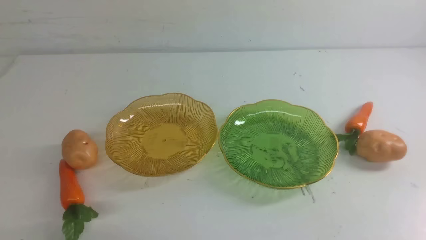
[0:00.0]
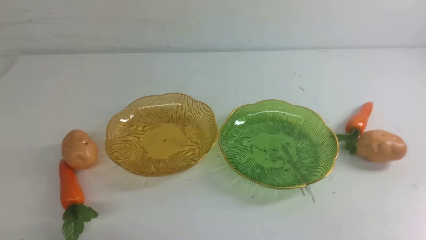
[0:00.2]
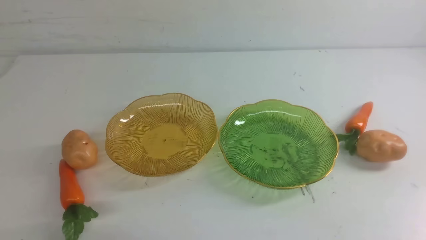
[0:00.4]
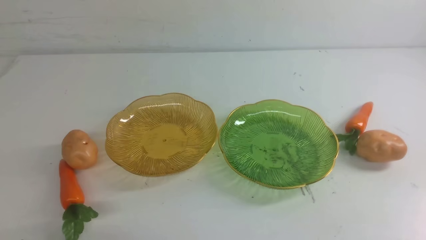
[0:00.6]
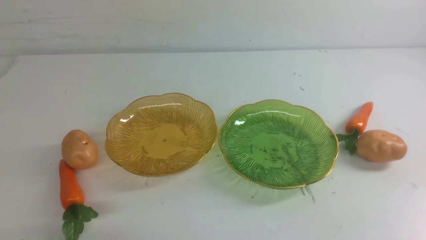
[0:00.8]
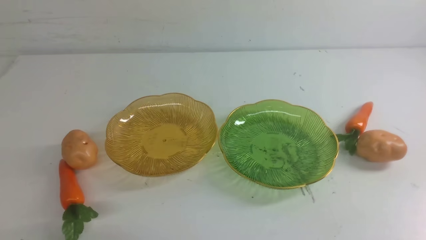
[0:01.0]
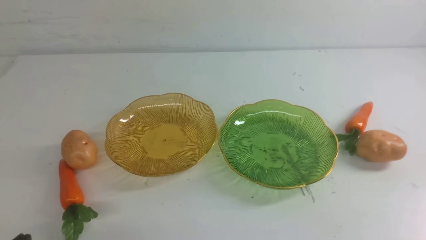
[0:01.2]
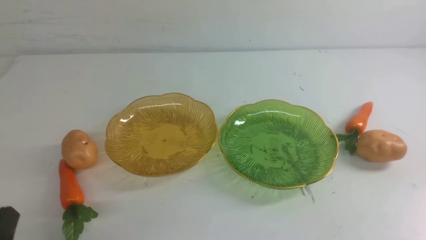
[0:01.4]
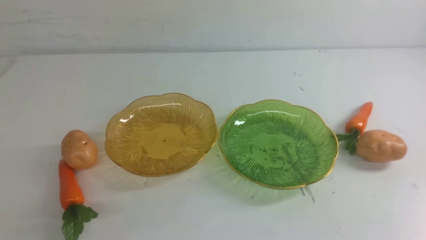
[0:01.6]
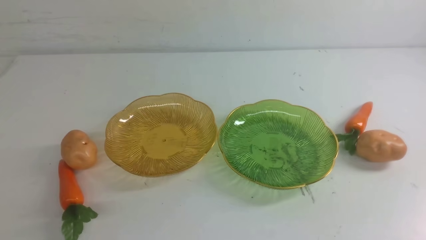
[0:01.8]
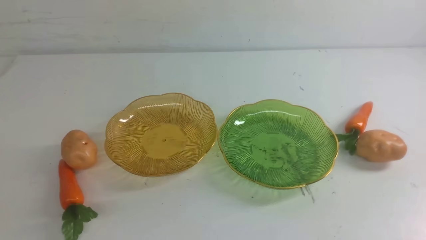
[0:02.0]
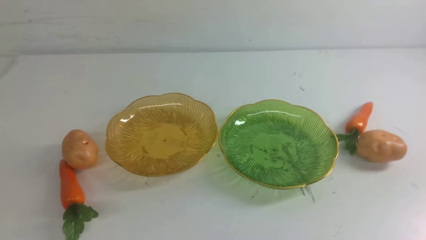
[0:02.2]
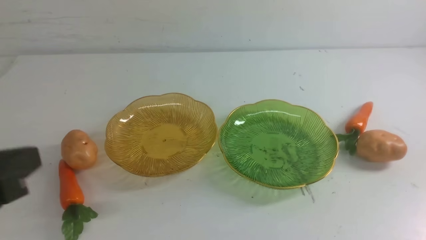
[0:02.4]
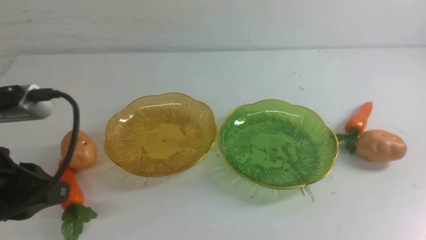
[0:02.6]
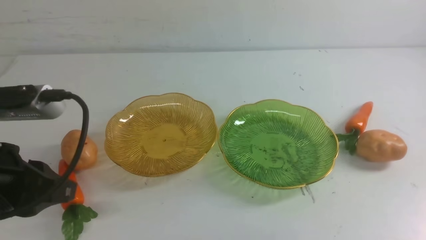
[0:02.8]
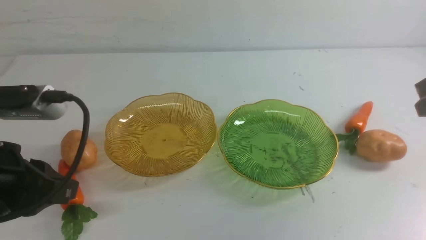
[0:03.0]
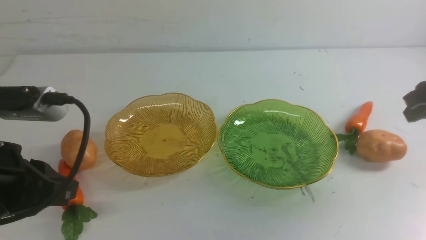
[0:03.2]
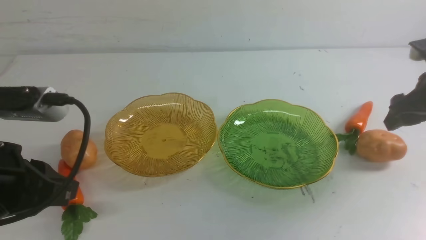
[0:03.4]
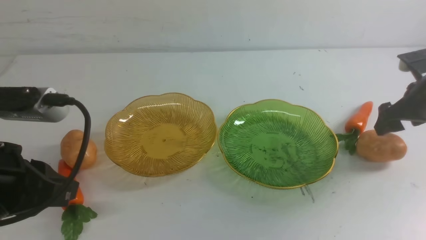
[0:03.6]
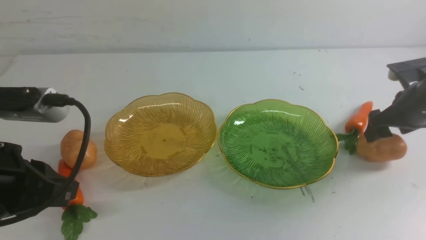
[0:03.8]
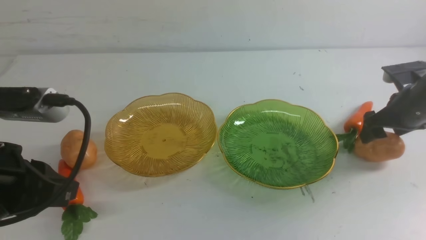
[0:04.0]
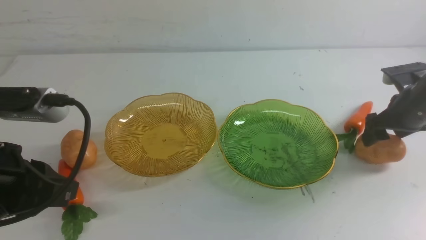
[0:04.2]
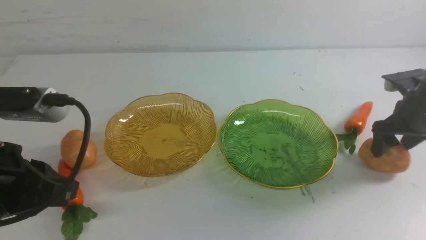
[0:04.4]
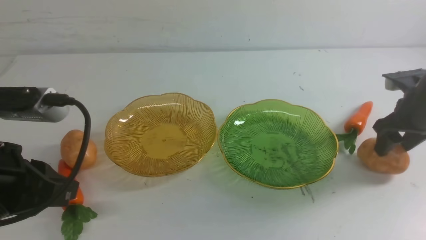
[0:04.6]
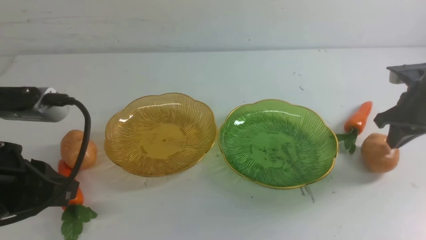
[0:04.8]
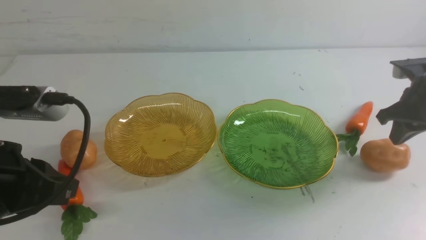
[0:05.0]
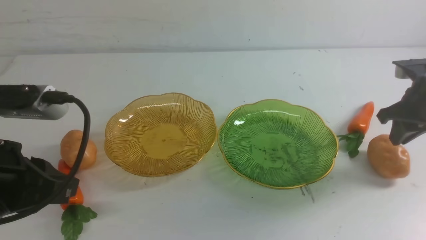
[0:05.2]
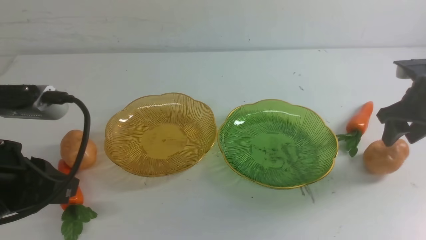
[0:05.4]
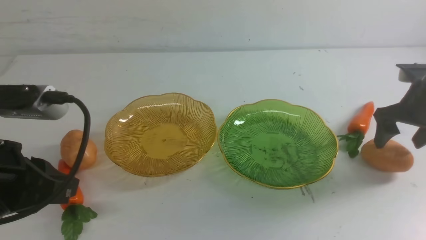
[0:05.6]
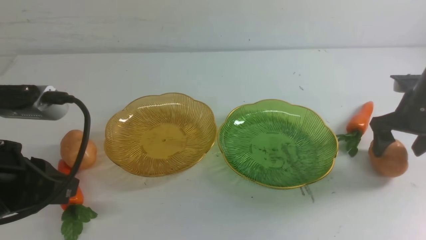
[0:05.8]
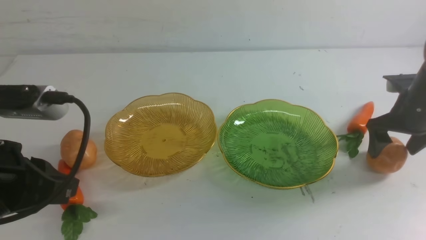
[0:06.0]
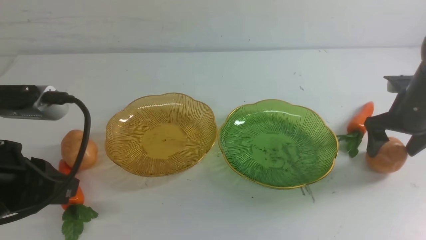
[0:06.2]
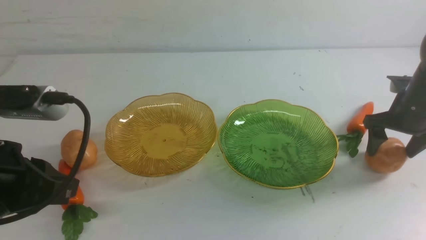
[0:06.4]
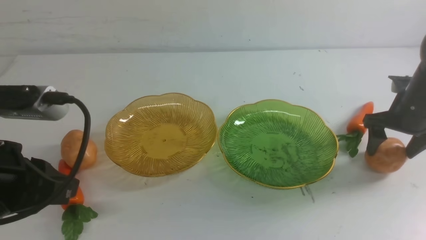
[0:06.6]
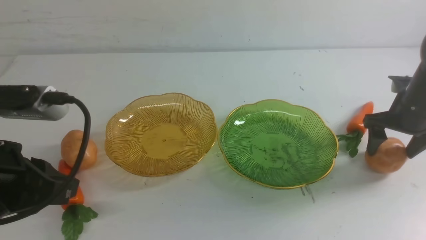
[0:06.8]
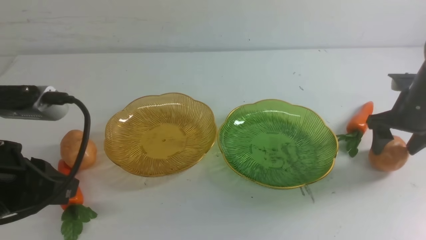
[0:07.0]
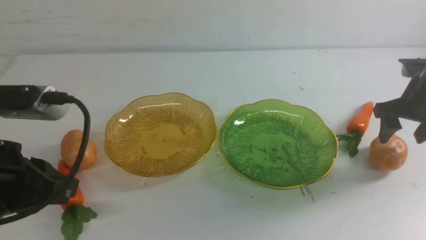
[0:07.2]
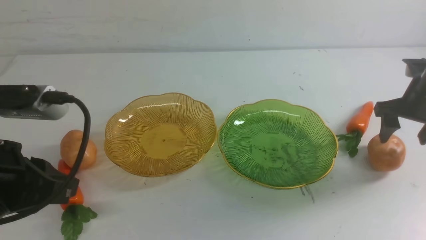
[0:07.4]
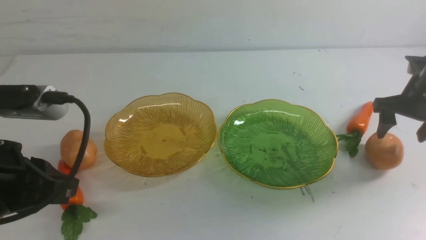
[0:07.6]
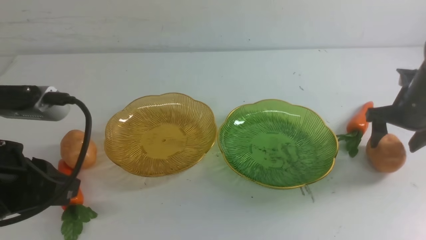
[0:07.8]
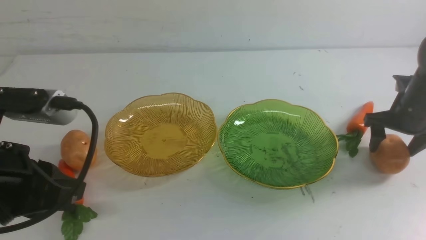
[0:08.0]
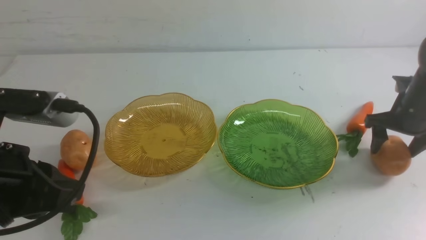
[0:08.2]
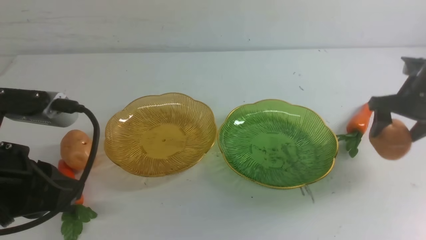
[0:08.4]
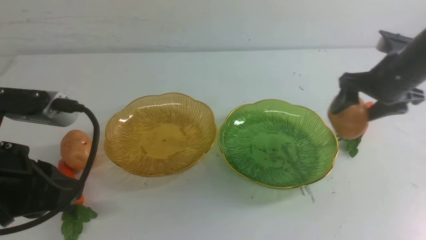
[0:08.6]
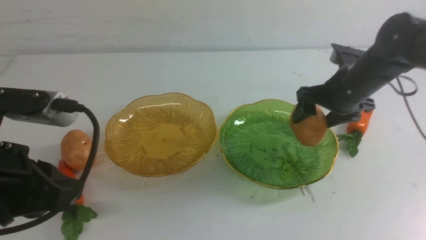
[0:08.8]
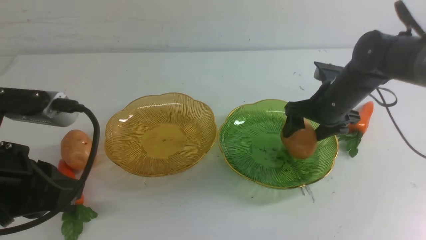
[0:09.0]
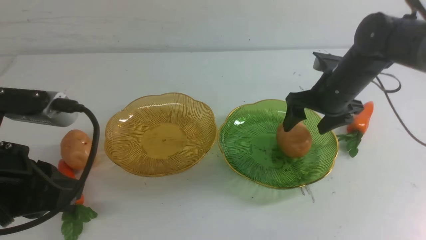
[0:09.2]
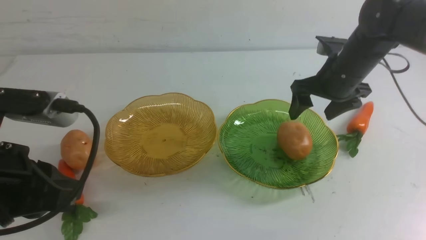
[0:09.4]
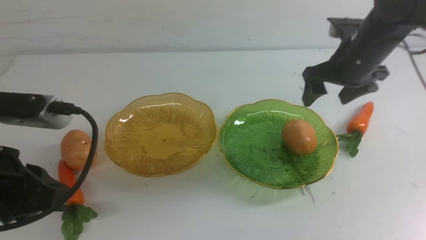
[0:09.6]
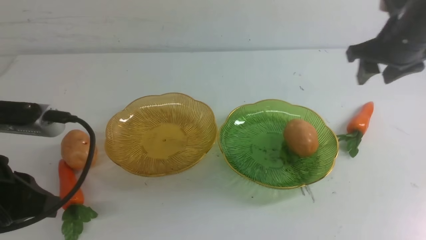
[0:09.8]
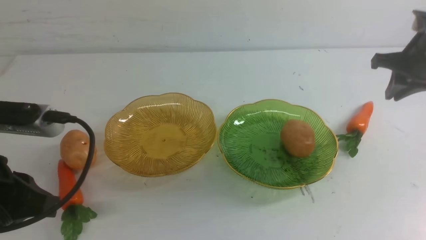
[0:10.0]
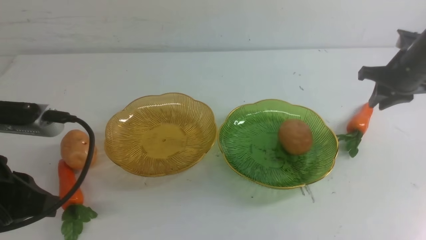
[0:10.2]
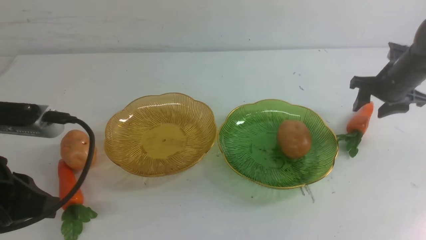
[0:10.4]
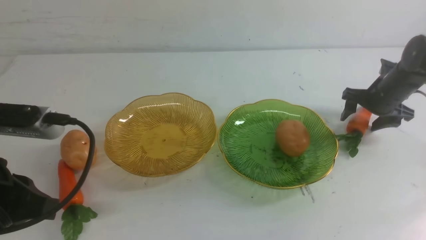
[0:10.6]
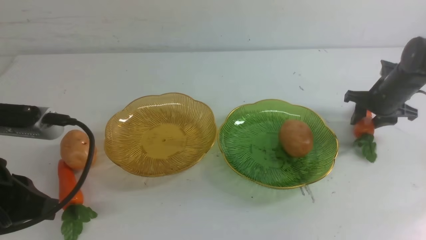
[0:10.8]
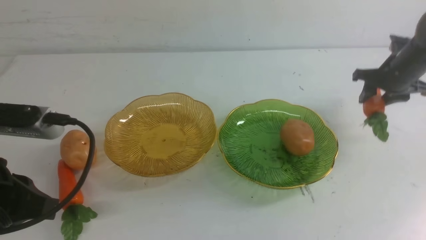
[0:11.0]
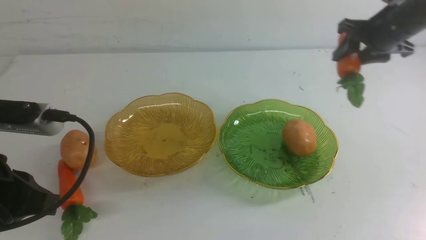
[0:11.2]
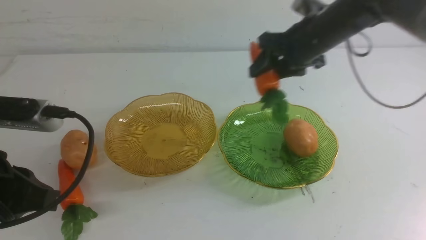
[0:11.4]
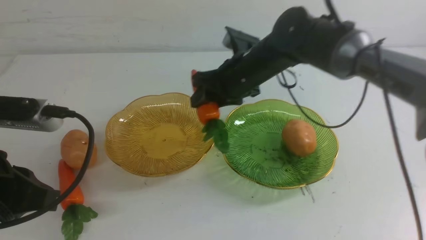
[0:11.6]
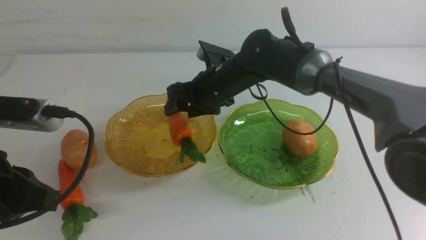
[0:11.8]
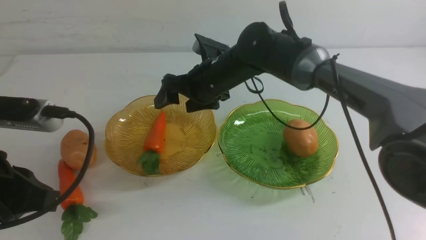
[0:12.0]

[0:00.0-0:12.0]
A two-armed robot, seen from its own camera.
Step, 0:00.0 to 0:09.4: Grab a potato with your right arm and put it on the right plate.
0:01.6 to 0:03.0: The left gripper is displaced upward and forward by some 15 cm, while the right gripper is displaced forward and upward by about 25 cm.
0:03.0 to 0:04.4: The right gripper goes approximately 15 cm downward and forward, and opens its fingers.
0:04.4 to 0:06.0: The right gripper opens its fingers.
0:06.0 to 0:07.6: The grippers move only a little.
0:07.6 to 0:09.0: The right gripper goes about 15 cm to the left and upward.
0:09.0 to 0:10.4: The right gripper travels to the right and forward by approximately 10 cm.
0:10.4 to 0:12.0: The right gripper travels upward, backward and to the left by roughly 30 cm, and closes. Meanwhile the left gripper heads forward, covering approximately 5 cm.

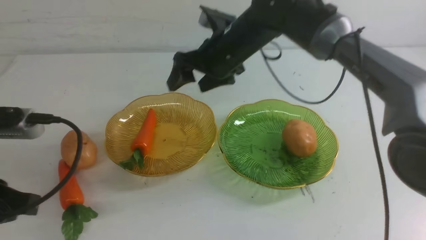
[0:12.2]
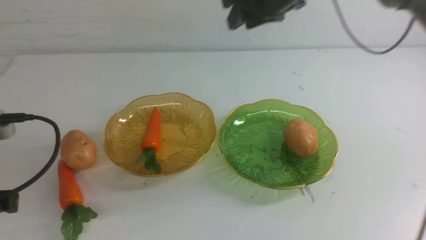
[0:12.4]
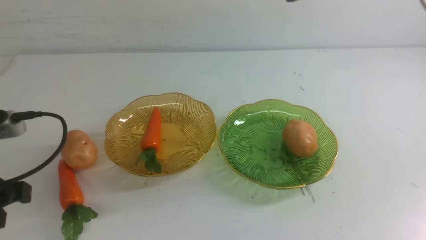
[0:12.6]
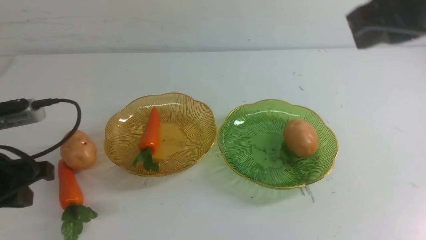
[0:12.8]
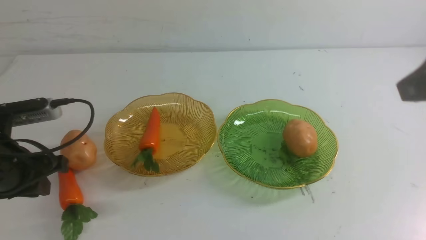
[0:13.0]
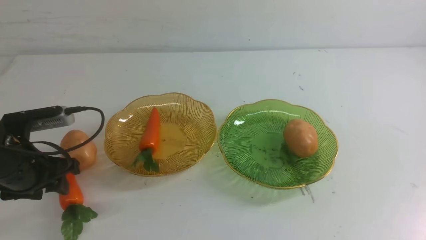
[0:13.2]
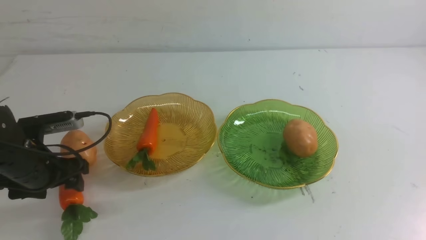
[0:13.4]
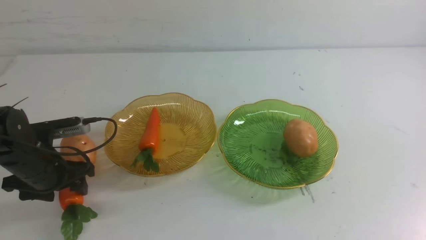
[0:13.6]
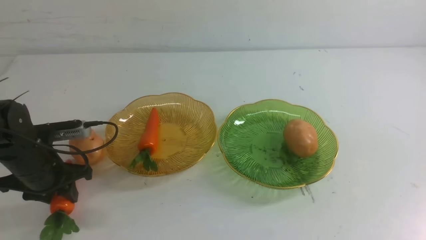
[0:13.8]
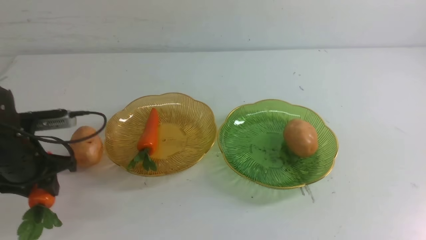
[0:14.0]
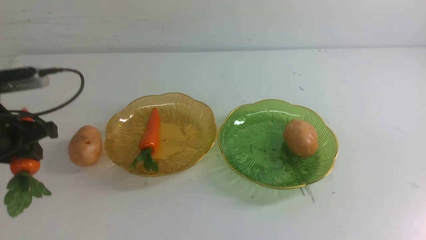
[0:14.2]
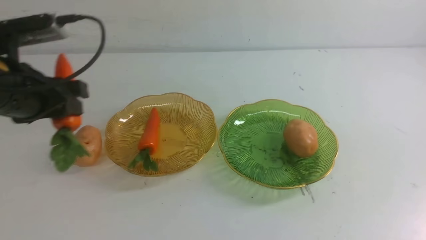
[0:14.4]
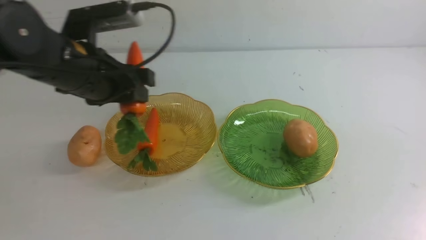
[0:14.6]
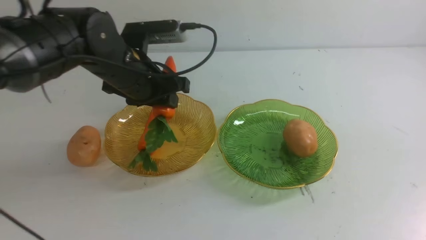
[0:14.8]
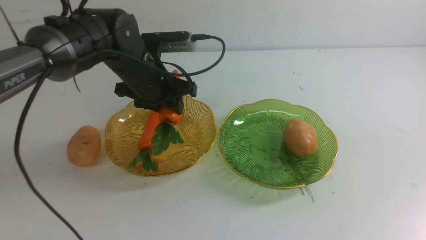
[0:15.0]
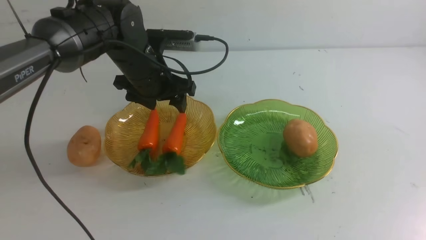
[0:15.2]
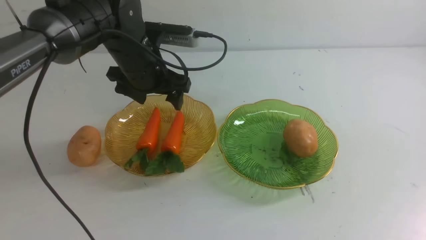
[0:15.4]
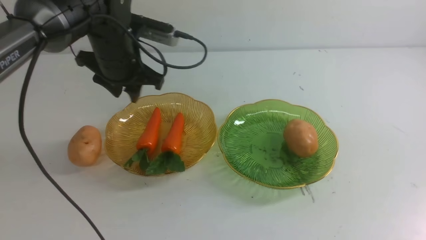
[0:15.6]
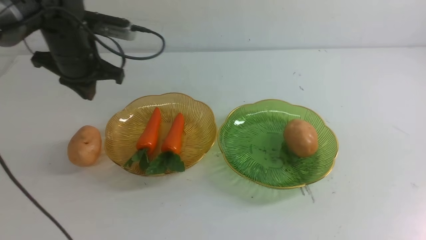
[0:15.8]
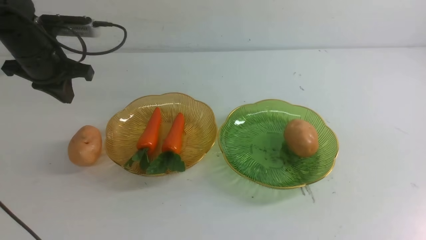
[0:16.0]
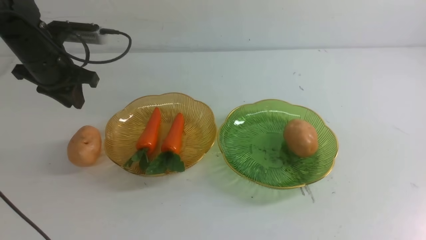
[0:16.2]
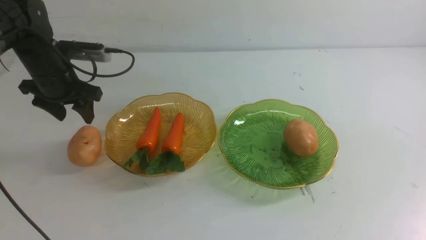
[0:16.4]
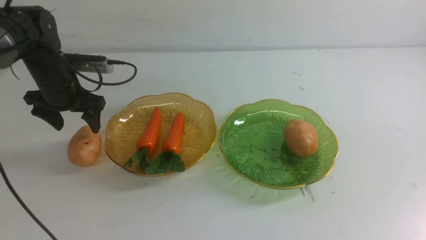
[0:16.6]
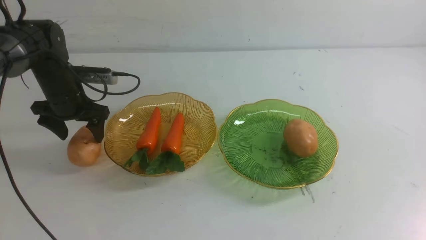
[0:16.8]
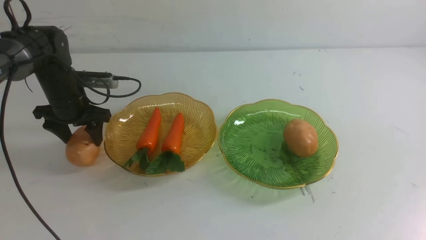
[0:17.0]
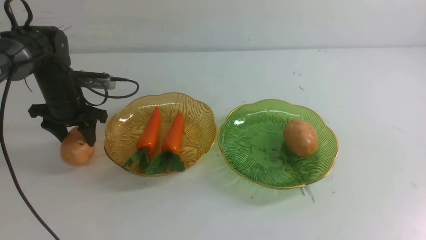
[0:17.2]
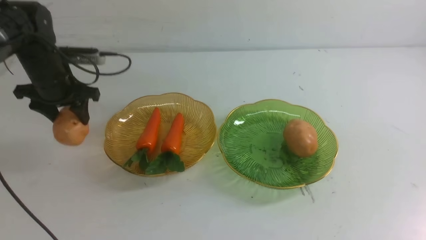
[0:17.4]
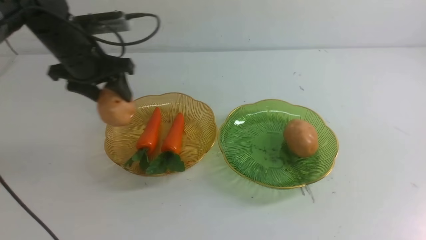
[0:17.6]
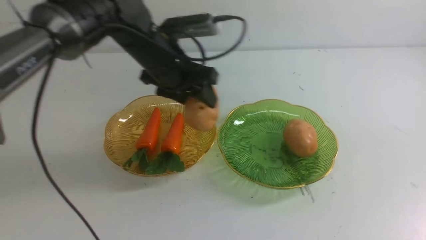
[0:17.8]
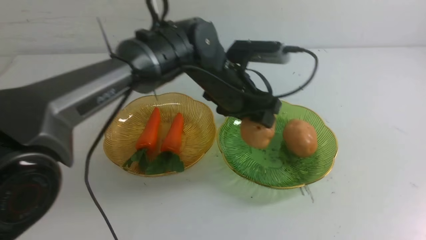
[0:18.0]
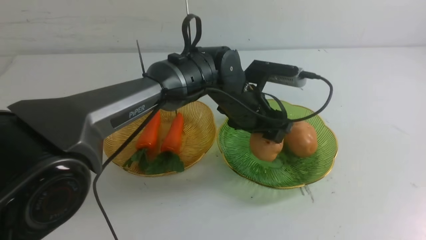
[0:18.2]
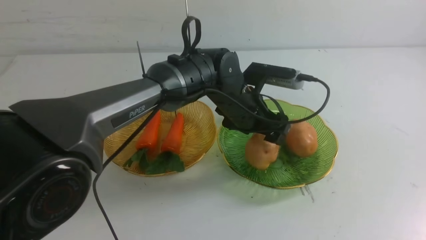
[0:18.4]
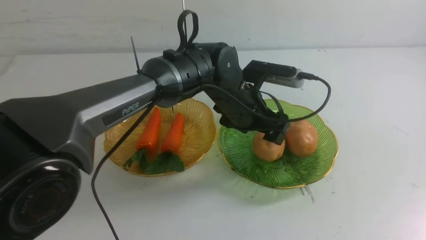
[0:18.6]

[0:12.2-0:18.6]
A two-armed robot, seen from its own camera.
Step, 0:12.4 to 0:15.4: use the left arm to grab a carrot and put it into the left plate.
0:12.2 to 0:13.8: The left gripper goes some 15 cm to the right, upward and forward. Meanwhile the right gripper shifts roughly 5 cm backward.
0:13.8 to 0:15.4: The left gripper heads forward and to the left, covering roughly 15 cm, and opens and closes again.
0:15.4 to 0:17.0: The left gripper reaches some 10 cm downward, then returns, and opens its fingers.
0:17.0 to 0:18.6: The left gripper is displaced to the right by about 25 cm.
